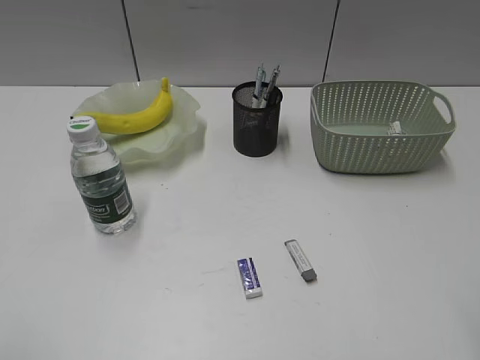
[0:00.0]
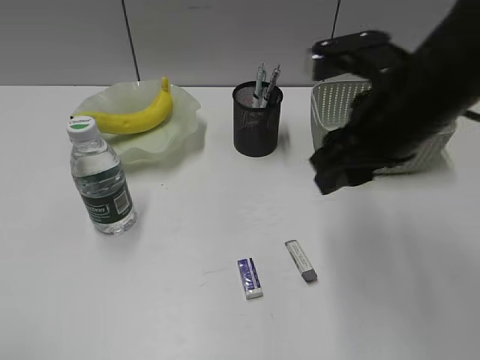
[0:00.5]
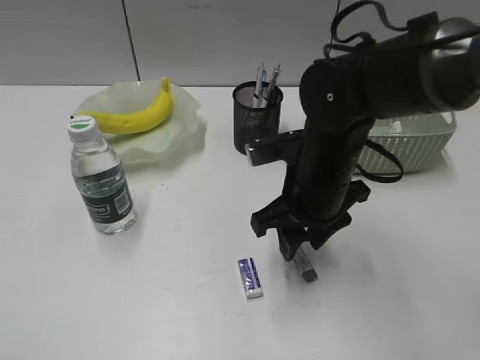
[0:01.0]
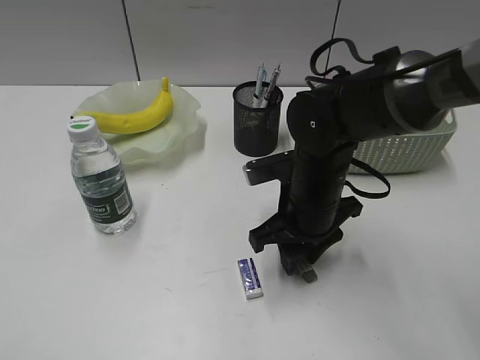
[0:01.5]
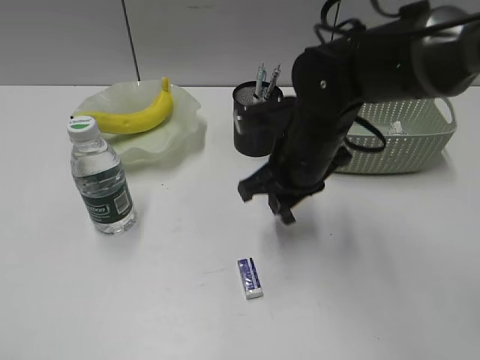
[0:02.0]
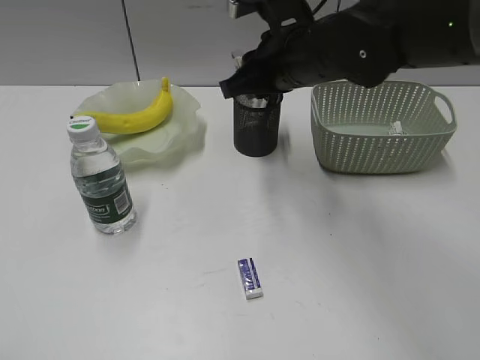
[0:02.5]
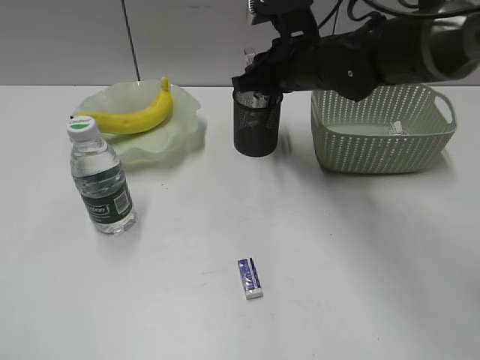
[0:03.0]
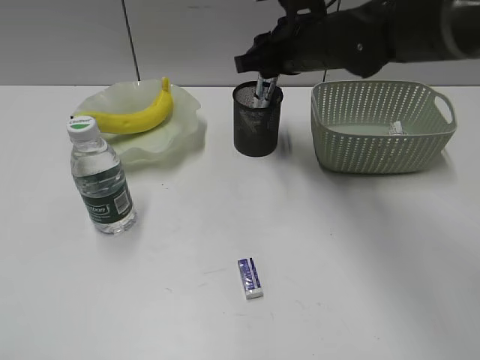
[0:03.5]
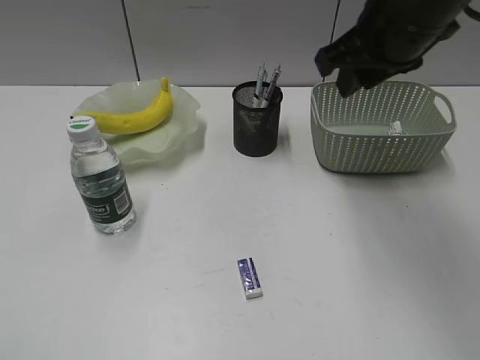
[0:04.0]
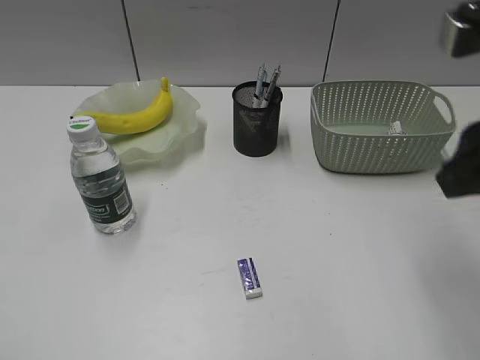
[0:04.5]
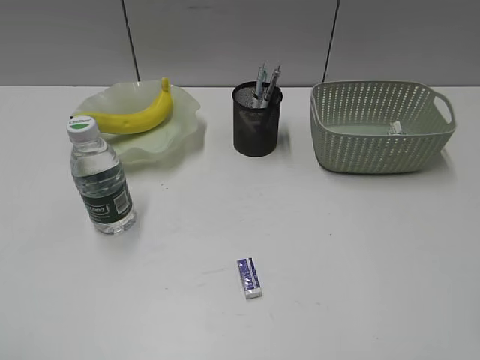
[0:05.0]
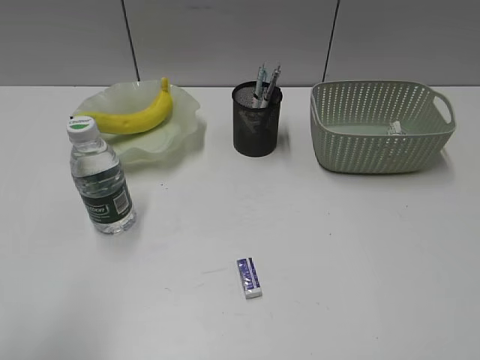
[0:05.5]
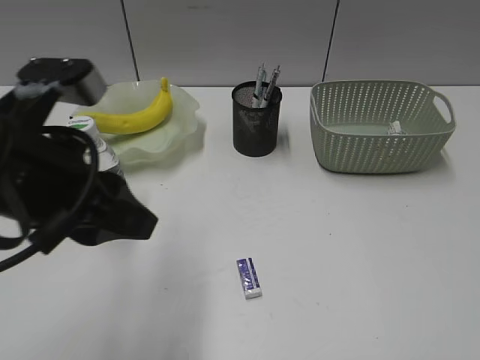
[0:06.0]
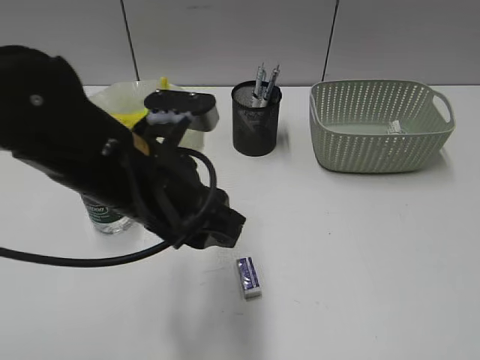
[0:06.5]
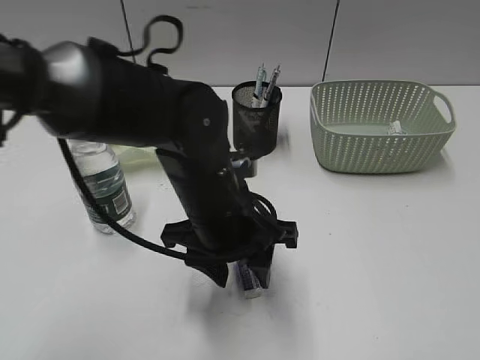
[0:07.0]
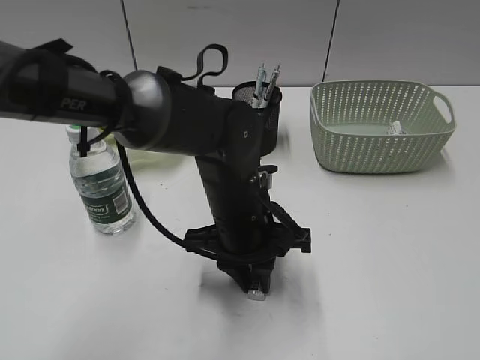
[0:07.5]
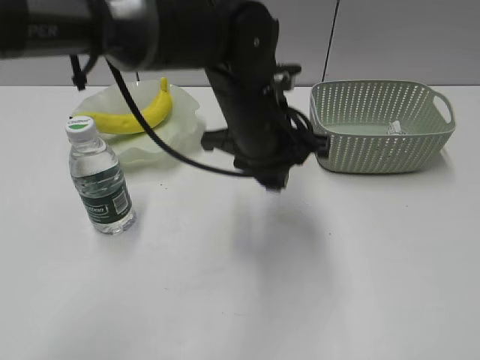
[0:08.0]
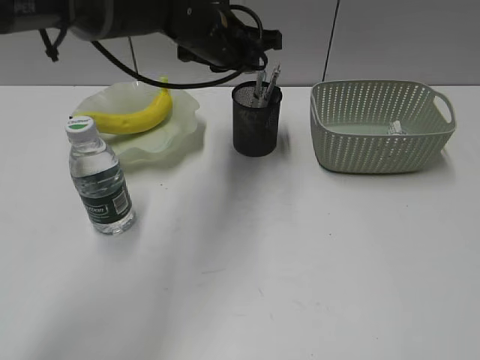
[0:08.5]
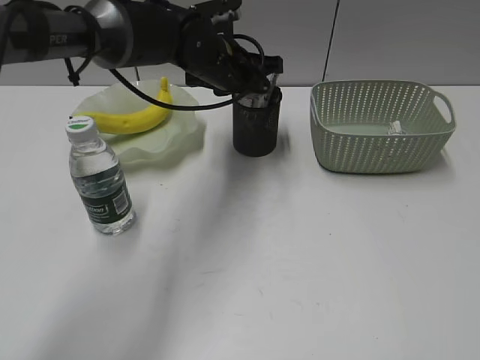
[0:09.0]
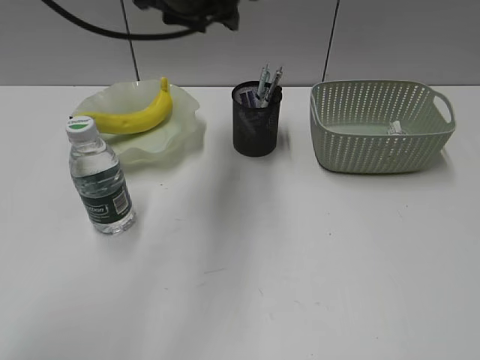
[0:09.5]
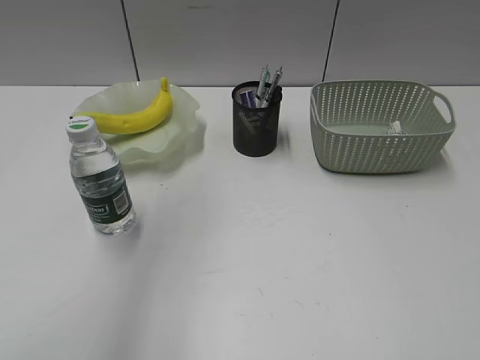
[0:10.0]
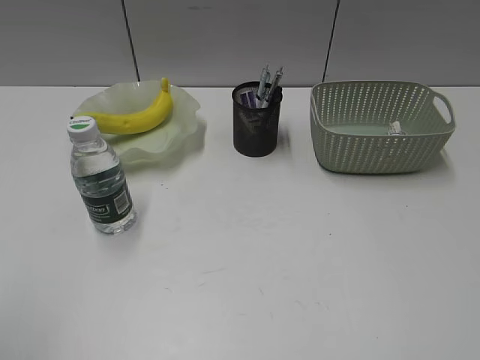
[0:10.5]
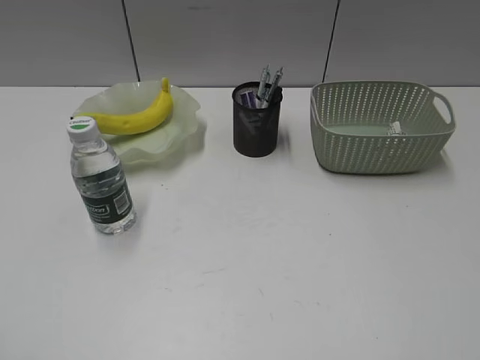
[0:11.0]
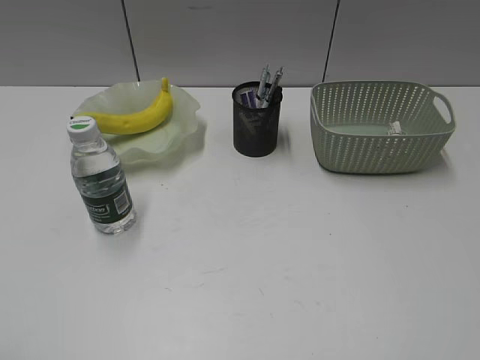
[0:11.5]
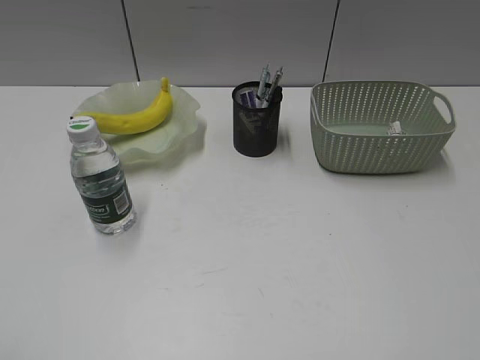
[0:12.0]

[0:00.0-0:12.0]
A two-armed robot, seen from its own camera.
Step, 0:02.0 to 0:03.0: Place the eraser in pen holder with right gripper.
Step, 0:03.5 to 0:07.5: Grasp the eraser with left gripper.
Step, 0:08.0 to 0:09.0: Place the eraser in pen holder with left gripper.
0:00.0 to 0:02.0: The right gripper moves forward, to the left and downward, approximately 35 cm, and closes.
0:02.0 to 0:04.0: The right gripper moves upward and to the right, approximately 15 cm.
0:04.0 to 0:06.0: The right gripper heads backward and to the right, covering approximately 35 cm. Meanwhile the left gripper shifts approximately 25 cm forward and to the right.
0:06.0 to 0:08.0: The right gripper moves some 5 cm; the left gripper heads to the right and forward, covering approximately 25 cm.
0:08.0 to 0:10.0: The left gripper goes roughly 35 cm upward and to the left, and opens its fingers.
0:10.0 to 0:12.0: The left gripper goes about 35 cm backward, downward and to the left.

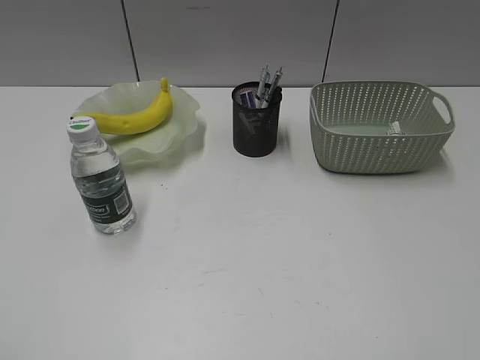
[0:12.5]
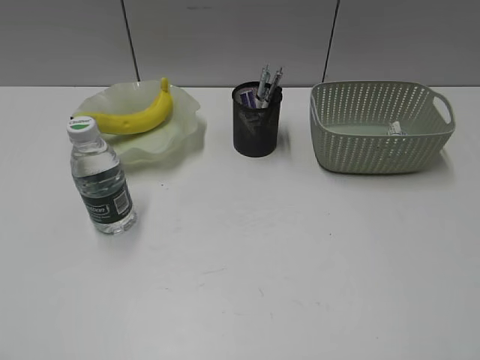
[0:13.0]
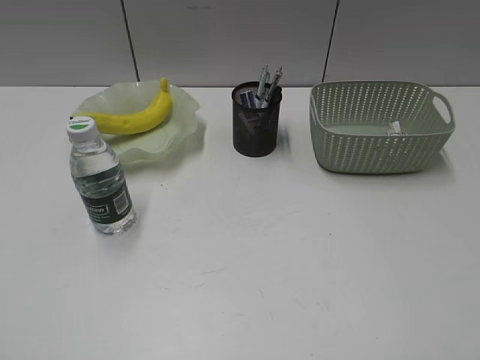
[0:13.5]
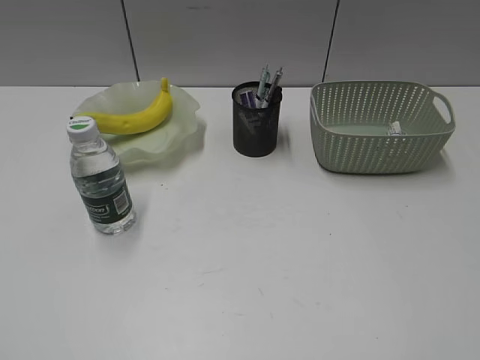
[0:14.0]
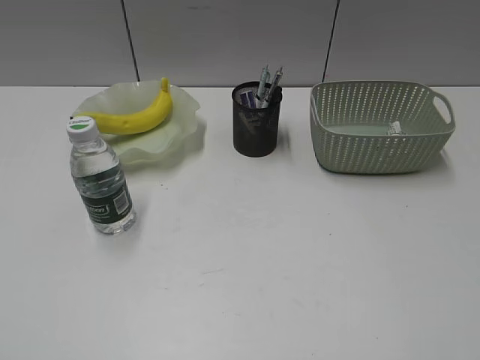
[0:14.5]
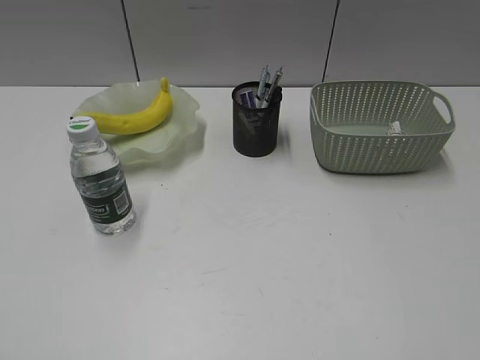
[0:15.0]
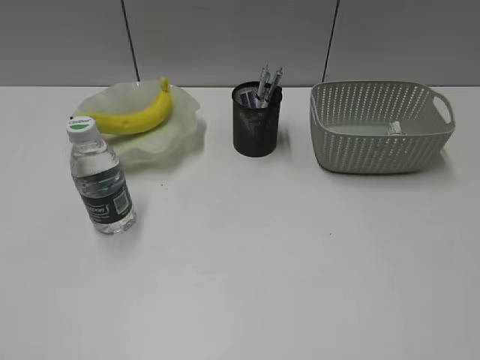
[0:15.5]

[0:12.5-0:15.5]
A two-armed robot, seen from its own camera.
0:14.0 to 0:15.5: Both grippers stay about where they are.
